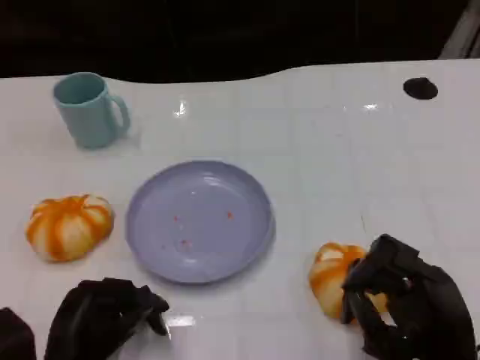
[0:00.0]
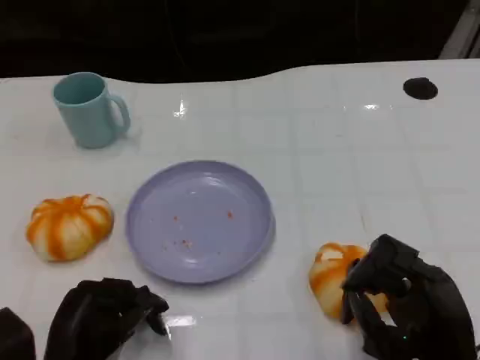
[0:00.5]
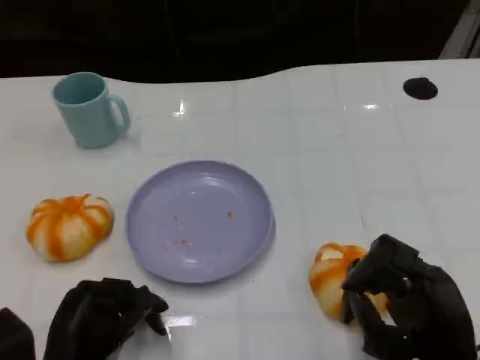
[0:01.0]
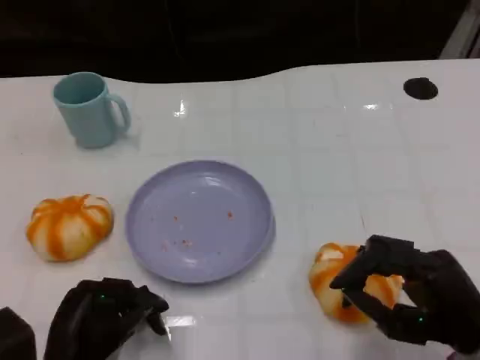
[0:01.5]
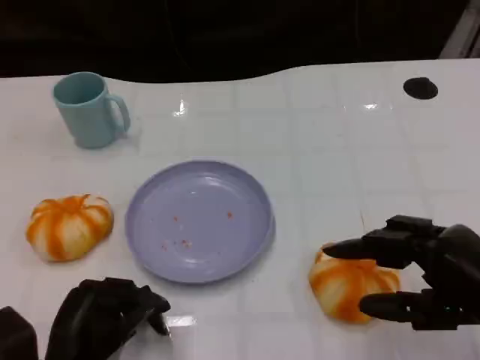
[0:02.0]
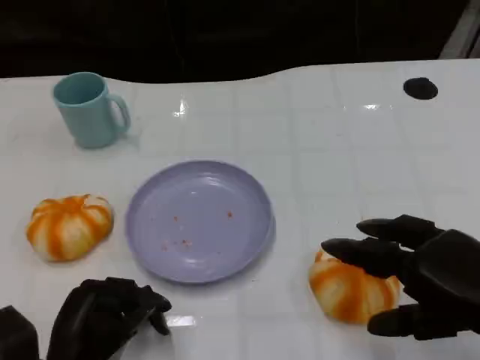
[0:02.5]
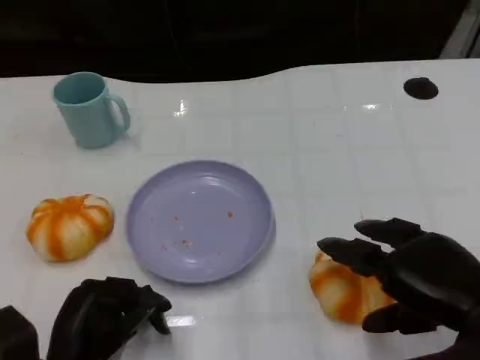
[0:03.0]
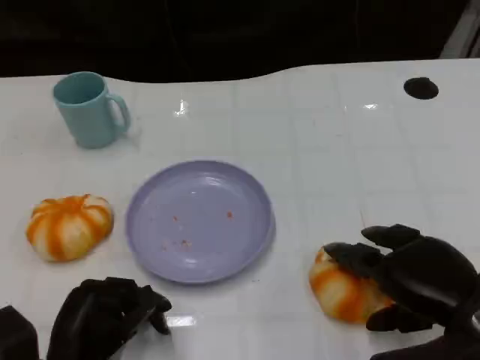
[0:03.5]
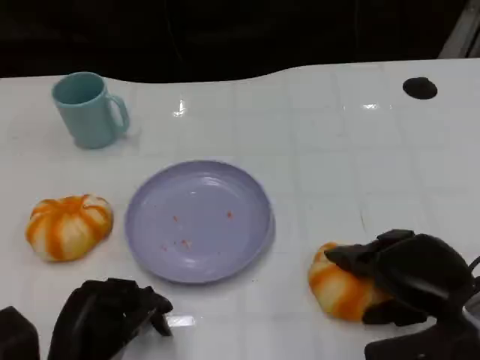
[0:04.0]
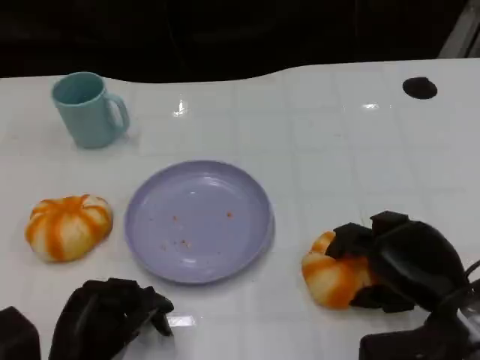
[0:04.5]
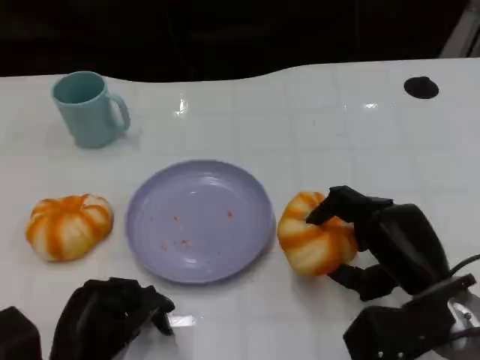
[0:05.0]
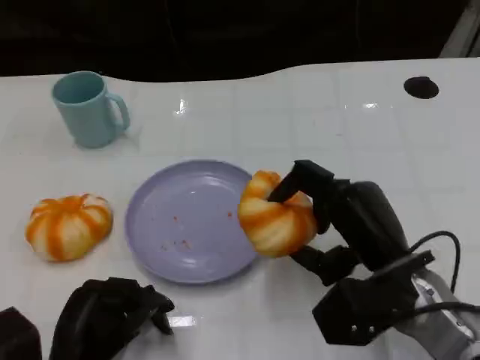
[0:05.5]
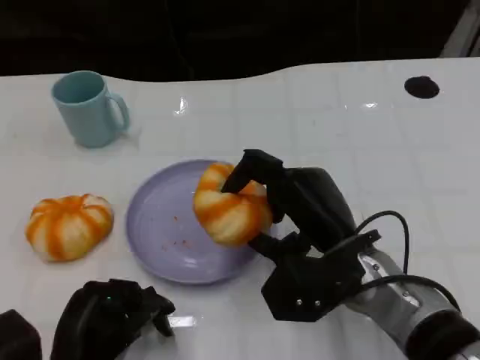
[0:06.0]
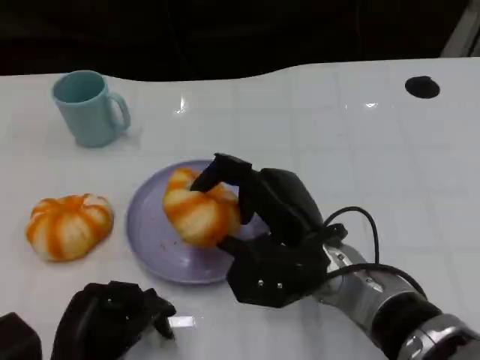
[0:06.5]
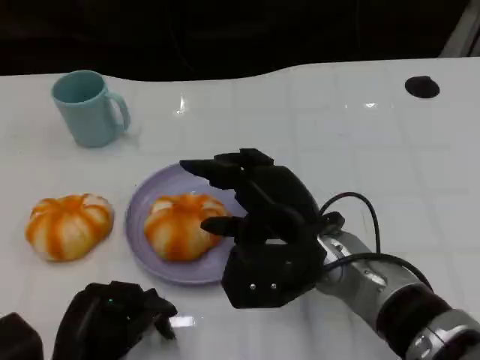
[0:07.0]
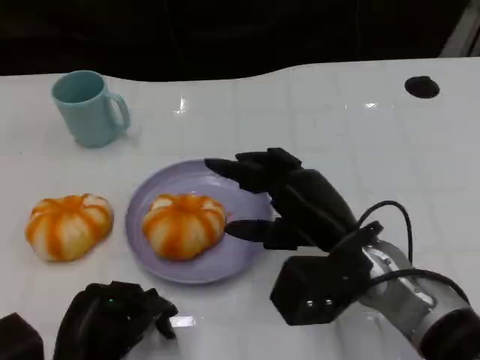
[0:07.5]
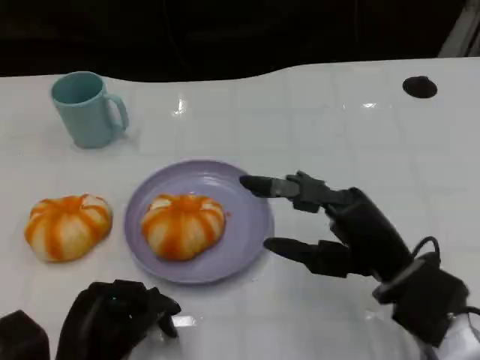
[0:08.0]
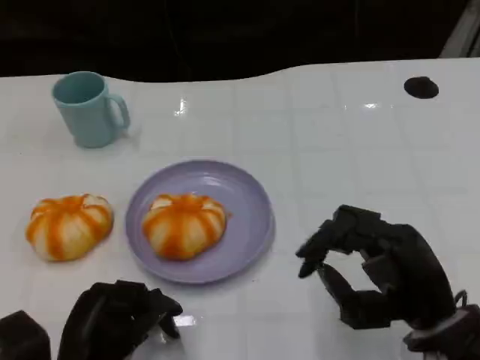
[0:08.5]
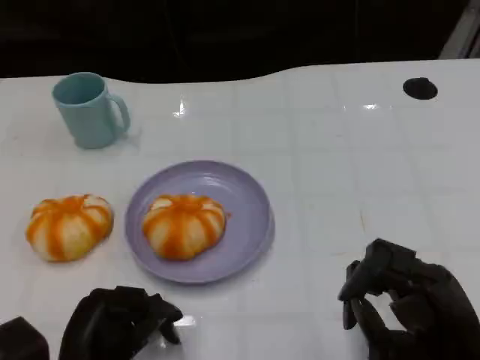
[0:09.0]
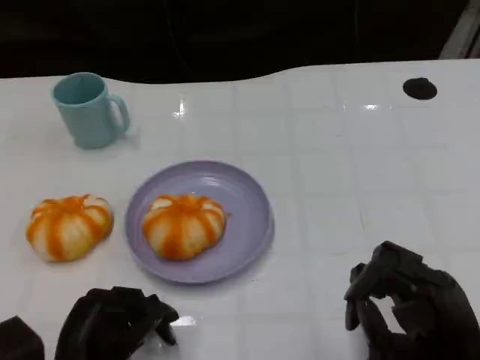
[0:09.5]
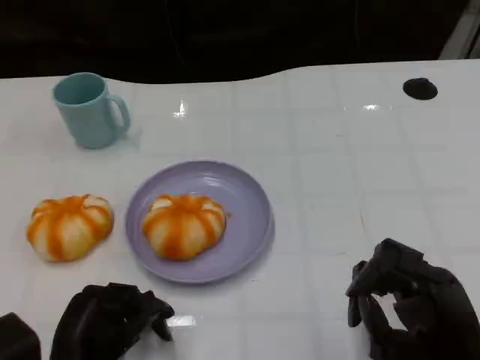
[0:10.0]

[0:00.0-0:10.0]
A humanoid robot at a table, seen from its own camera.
Task of the whole recording: Grasp the bread from the table and place it into the plate.
0:00.0 to 0:02.0: The right hand heads upward and to the right, covering some 10 cm.
0:02.0 to 0:04.0: The right hand changes place by approximately 5 cm.
0:04.0 to 0:06.0: The right hand is displaced to the left by some 10 cm.
0:06.0 to 0:08.0: The right hand goes about 5 cm to the right.
0:08.0 to 0:10.0: The right hand travels backward by some 5 cm.

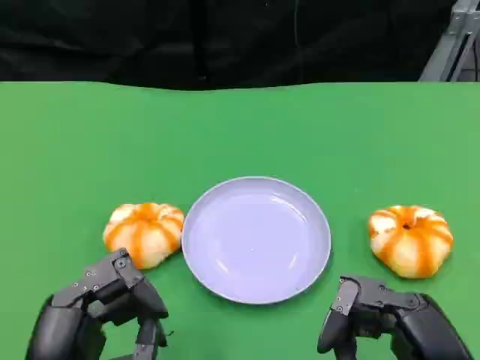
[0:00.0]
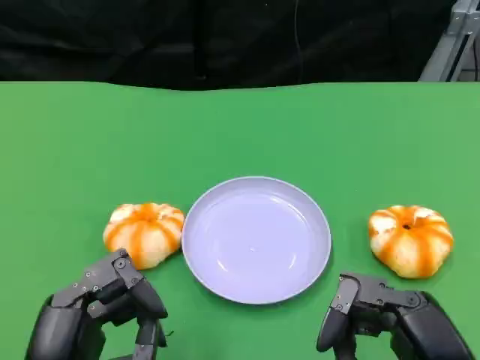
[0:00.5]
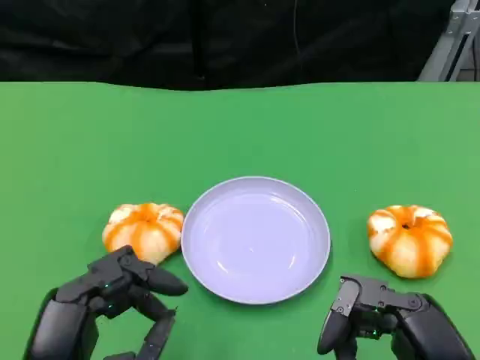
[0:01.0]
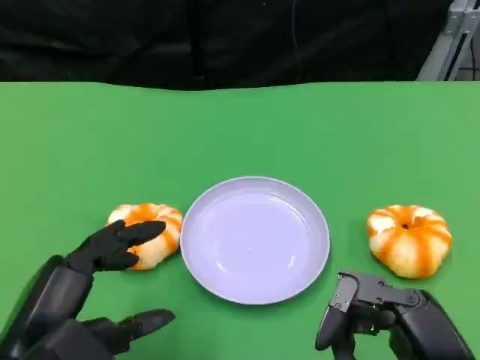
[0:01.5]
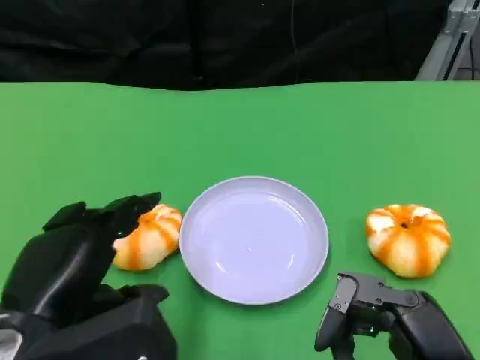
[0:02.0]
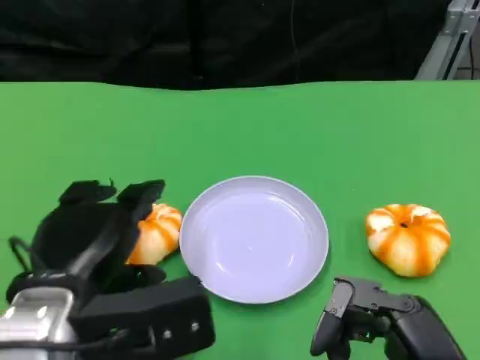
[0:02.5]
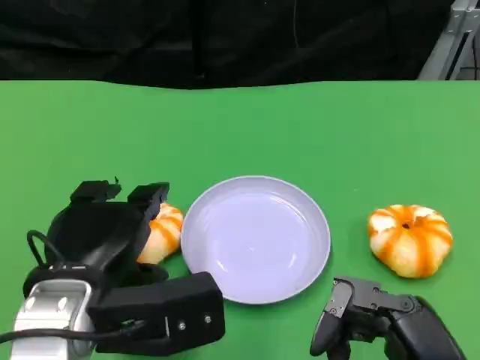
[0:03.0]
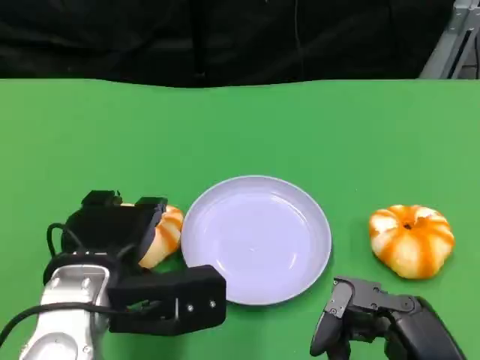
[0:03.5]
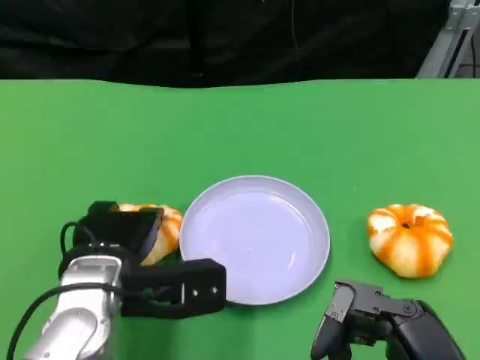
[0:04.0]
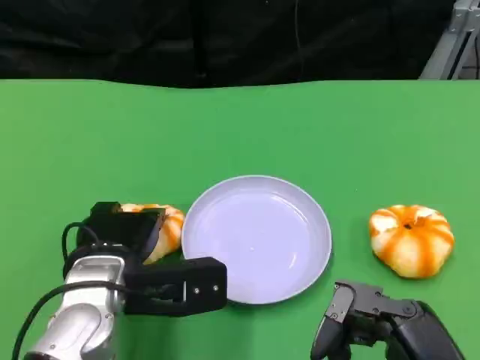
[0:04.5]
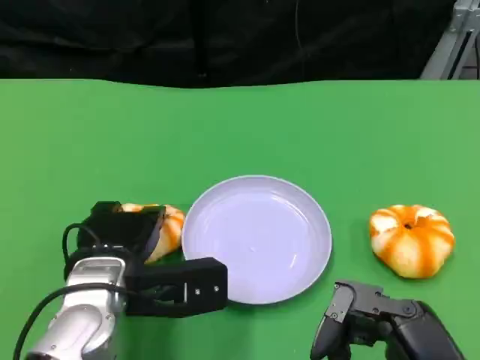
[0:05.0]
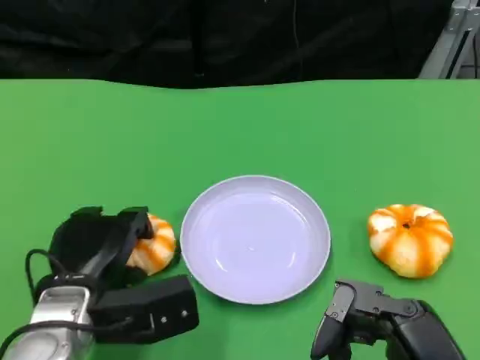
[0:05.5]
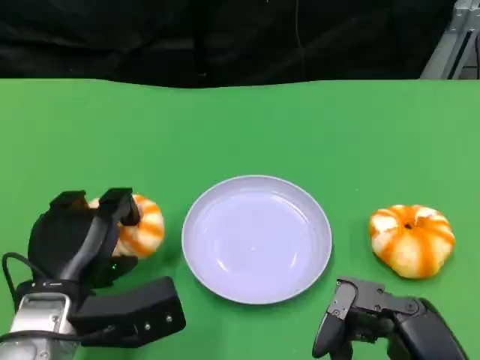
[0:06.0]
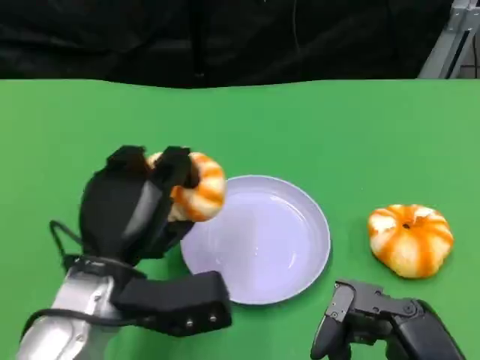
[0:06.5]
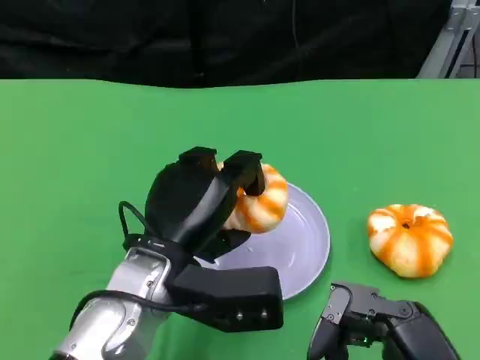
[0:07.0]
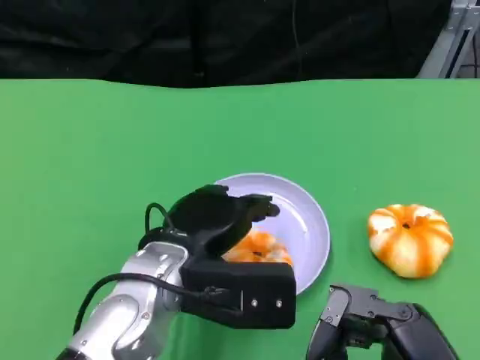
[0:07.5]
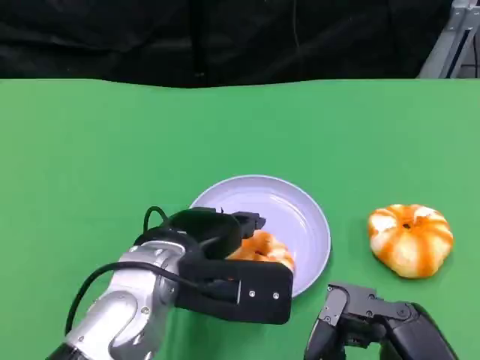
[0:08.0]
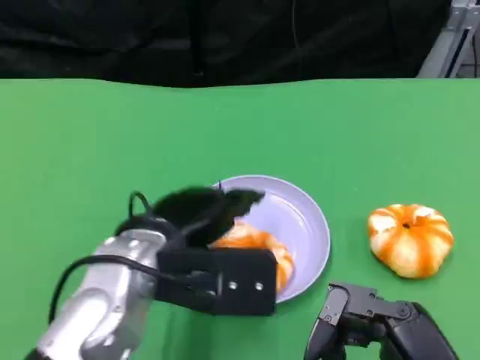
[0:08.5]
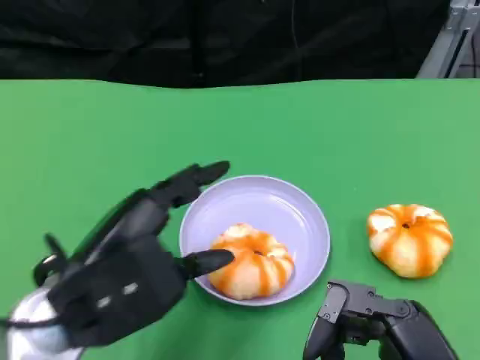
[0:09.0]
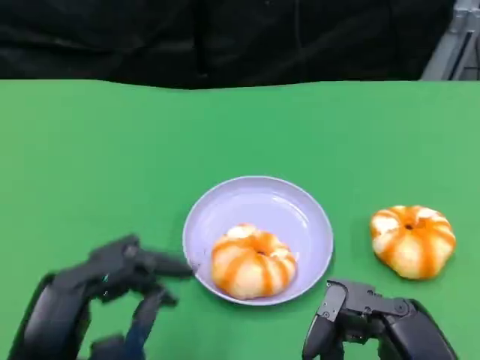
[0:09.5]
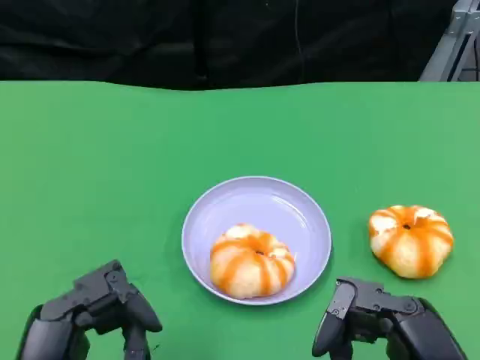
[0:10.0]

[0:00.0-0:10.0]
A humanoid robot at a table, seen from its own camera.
Task of the whole recording: Grasp the bread from the table and place it into the plate.
0:00.0 to 0:02.0: The left hand ends up approximately 5 cm from where it was.
0:02.0 to 0:04.0: The left hand goes approximately 10 cm forward and downward.
0:04.0 to 0:06.0: The left hand moves approximately 5 cm.
0:06.0 to 0:08.0: The left hand heads to the right and upward, covering roughly 10 cm.
0:08.0 to 0:10.0: The left hand is displaced backward and to the left by some 20 cm.

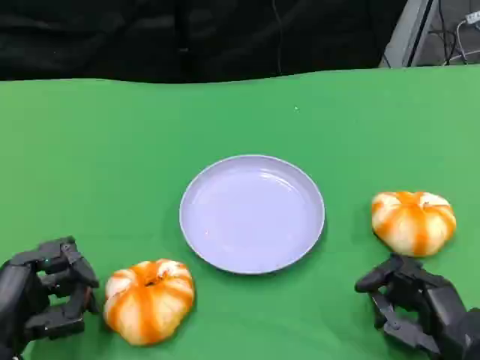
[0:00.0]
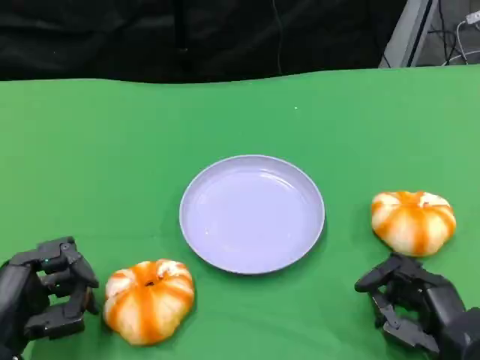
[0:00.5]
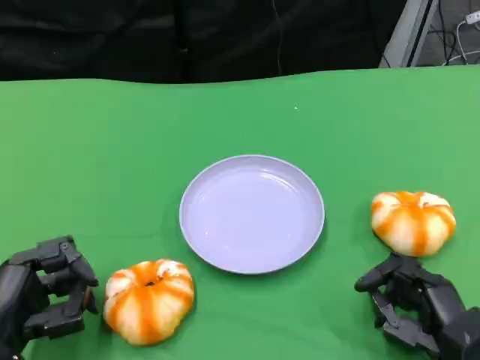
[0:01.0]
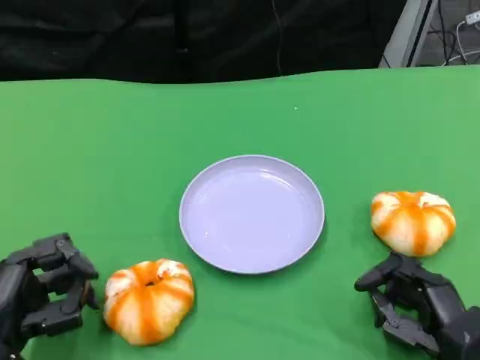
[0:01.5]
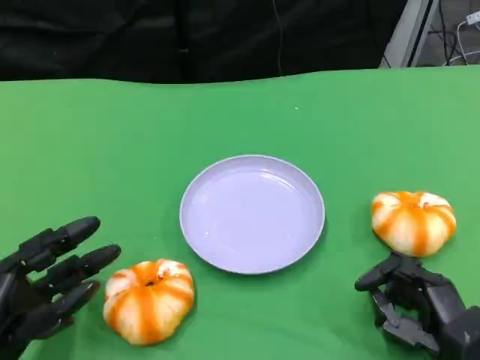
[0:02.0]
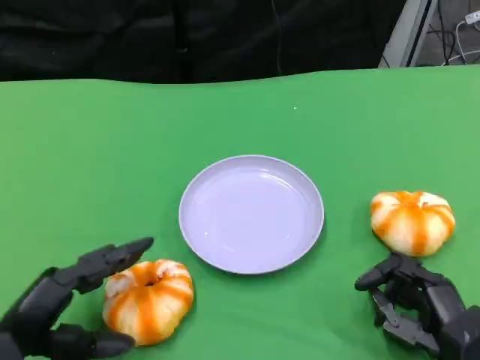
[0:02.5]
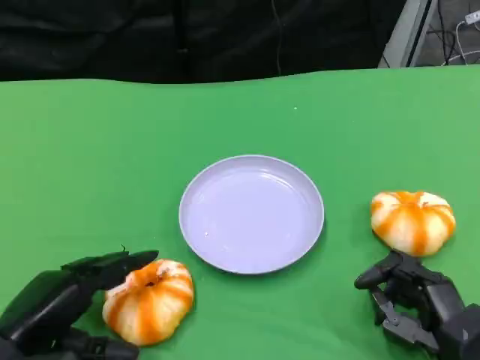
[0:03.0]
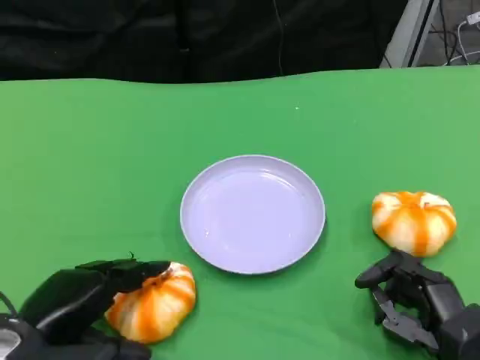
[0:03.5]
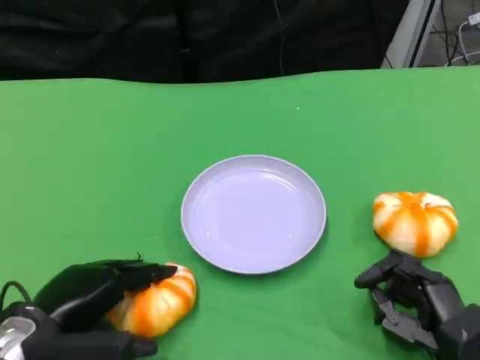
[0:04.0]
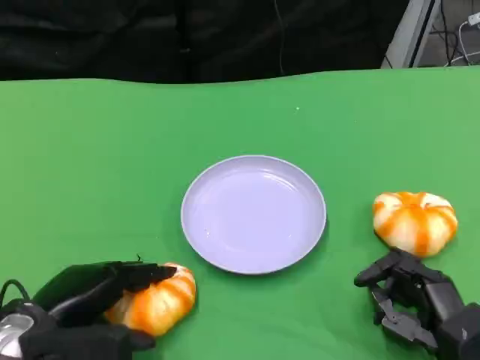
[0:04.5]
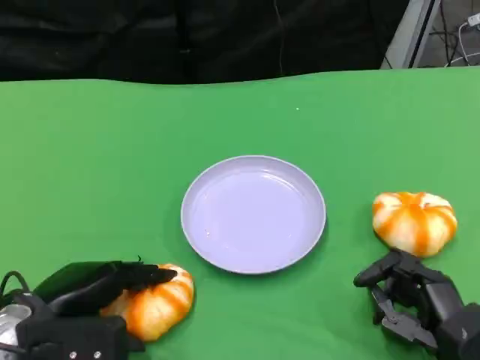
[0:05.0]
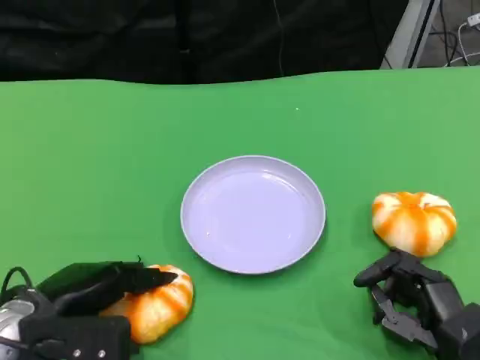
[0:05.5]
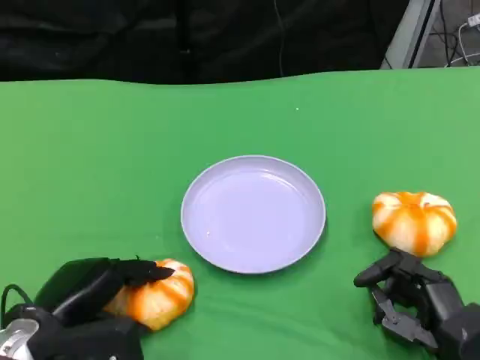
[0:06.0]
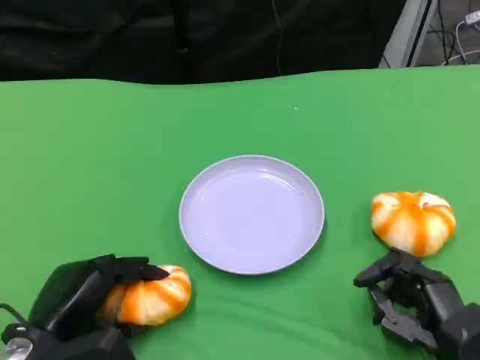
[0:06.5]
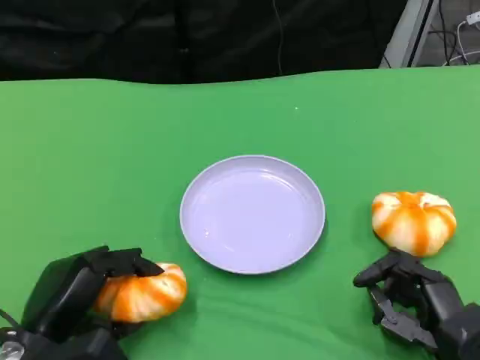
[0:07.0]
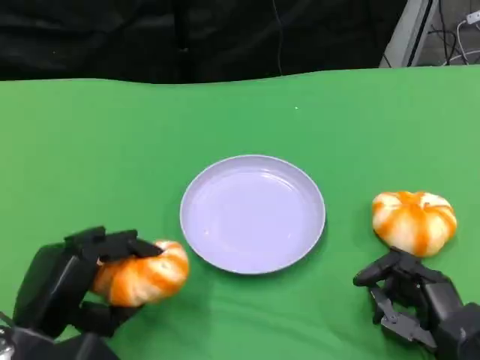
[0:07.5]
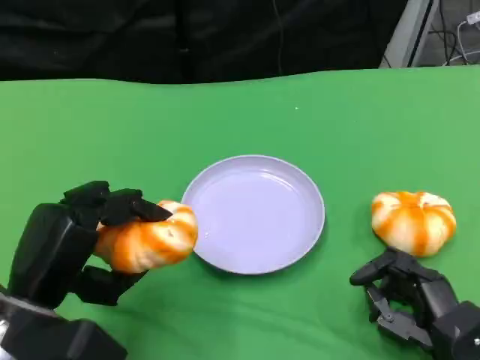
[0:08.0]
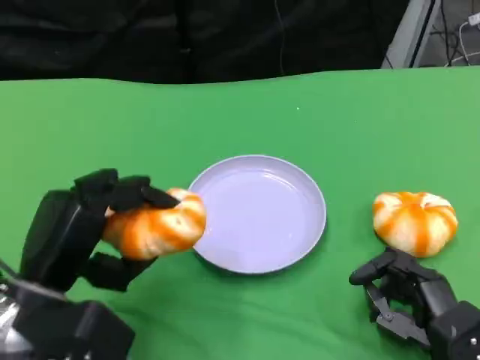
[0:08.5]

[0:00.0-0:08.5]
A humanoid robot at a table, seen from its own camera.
Task of the whole recording: Grasp the bread from the table and place it into the plate.
0:00.0 to 0:02.0: The hands stay close to where they were, moving slightly.
0:02.0 to 0:04.0: The left hand moves about 5 cm.
0:06.5 to 0:08.5: The left hand heads upward, covering roughly 5 cm.
